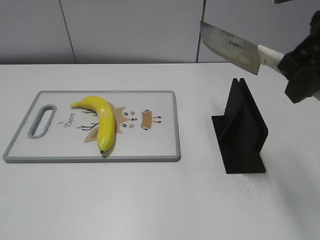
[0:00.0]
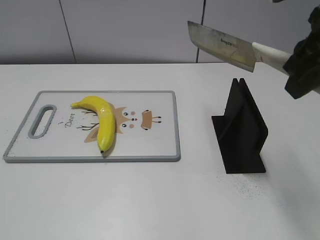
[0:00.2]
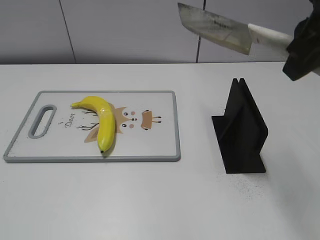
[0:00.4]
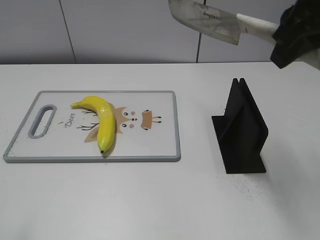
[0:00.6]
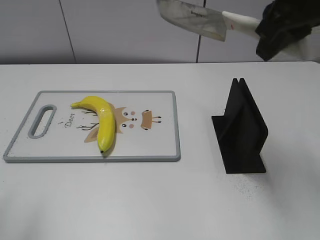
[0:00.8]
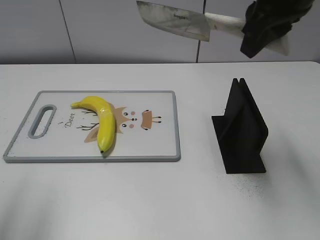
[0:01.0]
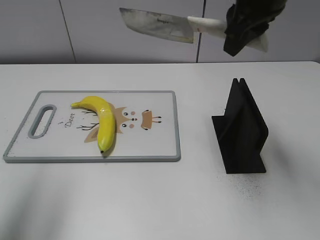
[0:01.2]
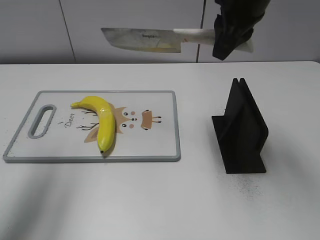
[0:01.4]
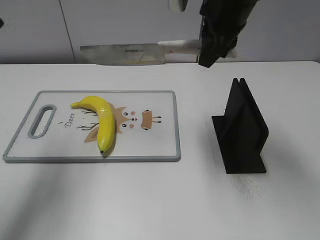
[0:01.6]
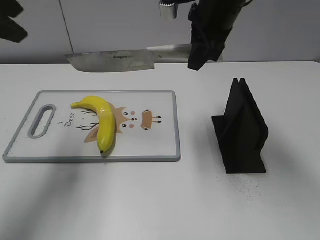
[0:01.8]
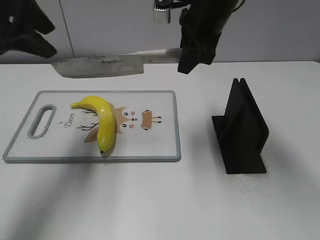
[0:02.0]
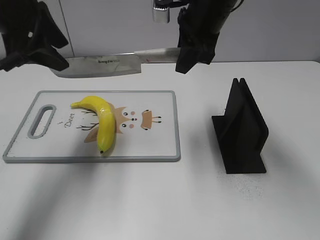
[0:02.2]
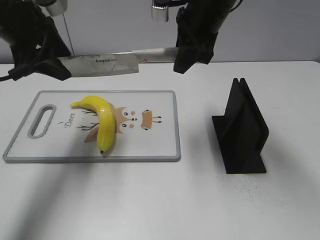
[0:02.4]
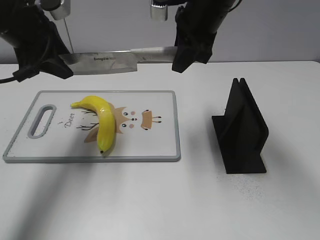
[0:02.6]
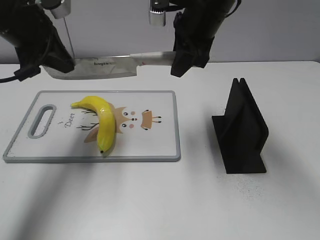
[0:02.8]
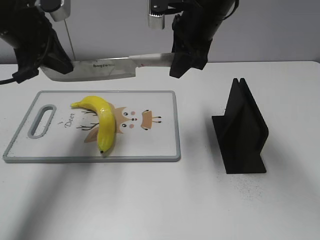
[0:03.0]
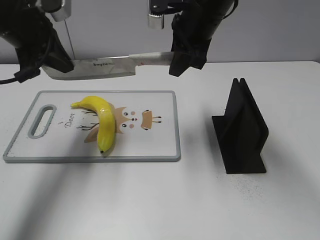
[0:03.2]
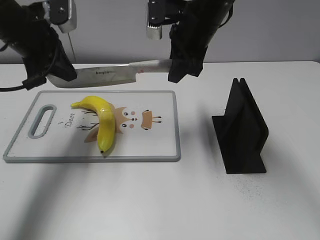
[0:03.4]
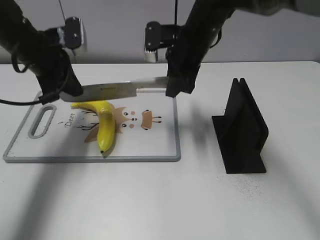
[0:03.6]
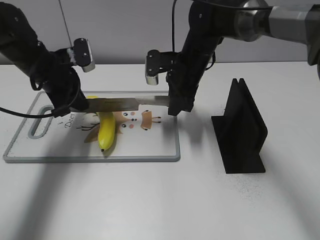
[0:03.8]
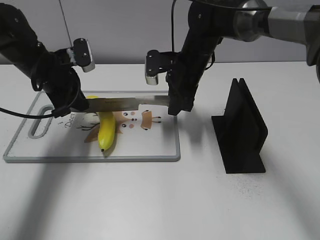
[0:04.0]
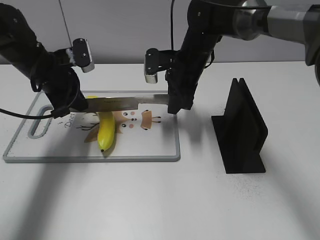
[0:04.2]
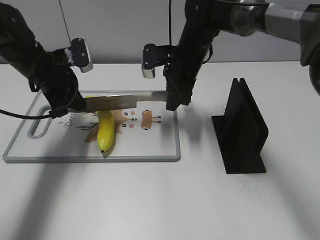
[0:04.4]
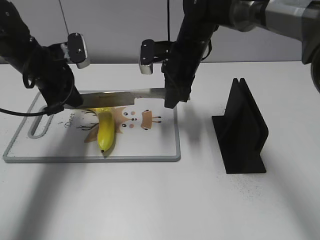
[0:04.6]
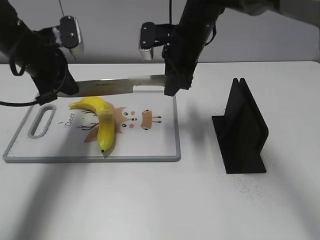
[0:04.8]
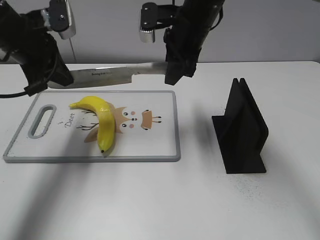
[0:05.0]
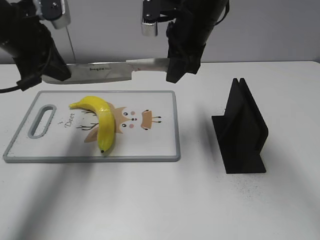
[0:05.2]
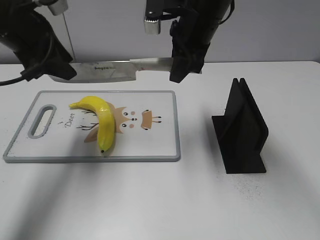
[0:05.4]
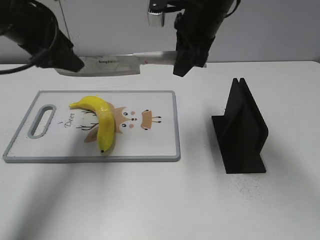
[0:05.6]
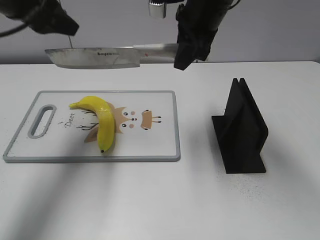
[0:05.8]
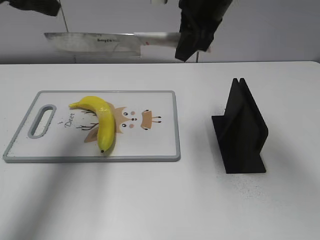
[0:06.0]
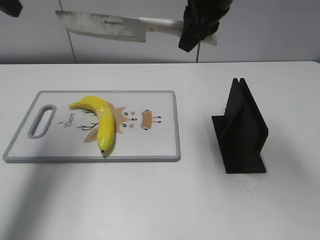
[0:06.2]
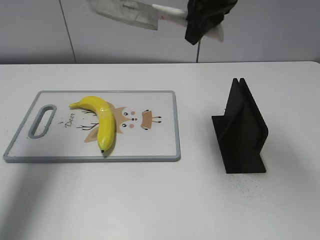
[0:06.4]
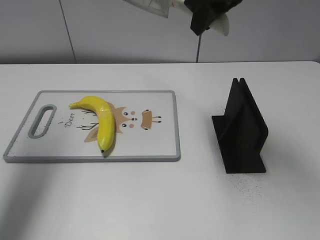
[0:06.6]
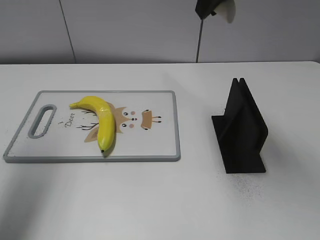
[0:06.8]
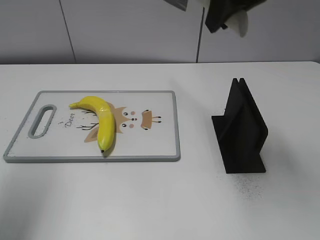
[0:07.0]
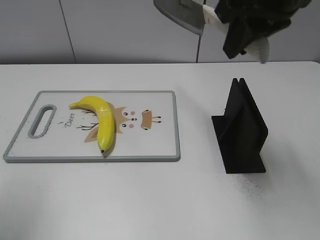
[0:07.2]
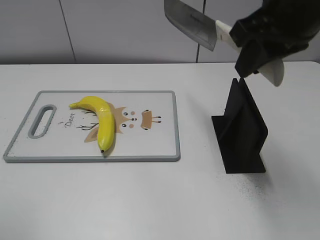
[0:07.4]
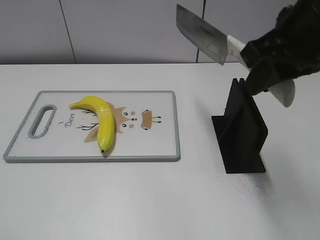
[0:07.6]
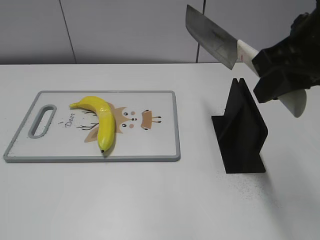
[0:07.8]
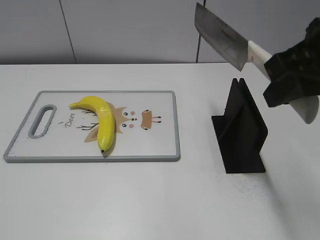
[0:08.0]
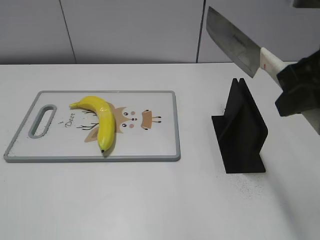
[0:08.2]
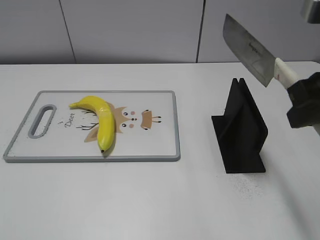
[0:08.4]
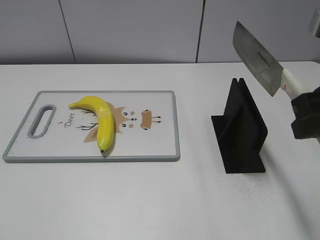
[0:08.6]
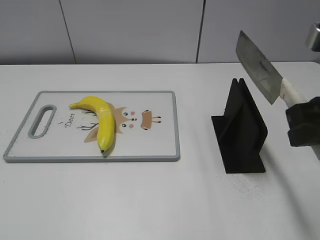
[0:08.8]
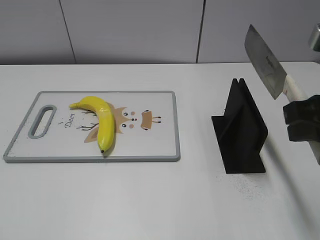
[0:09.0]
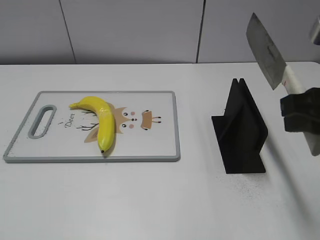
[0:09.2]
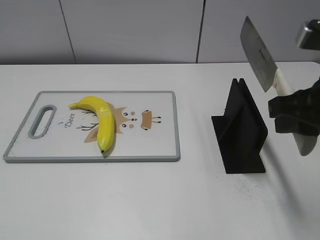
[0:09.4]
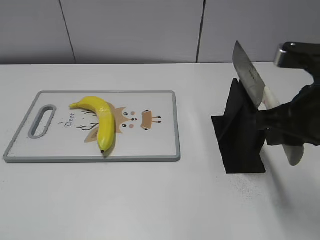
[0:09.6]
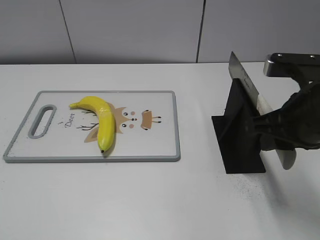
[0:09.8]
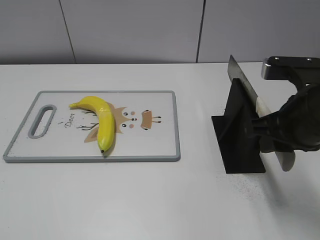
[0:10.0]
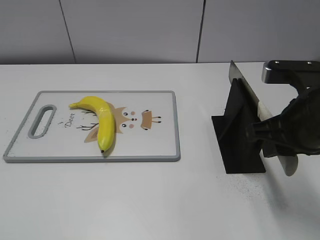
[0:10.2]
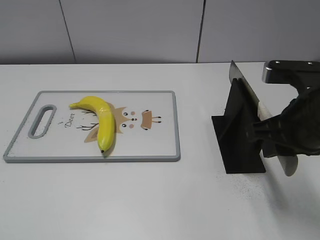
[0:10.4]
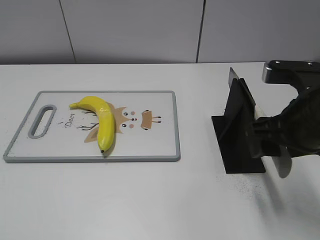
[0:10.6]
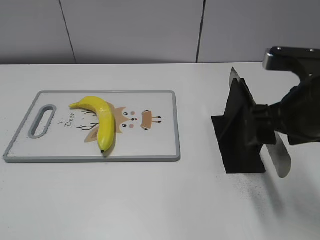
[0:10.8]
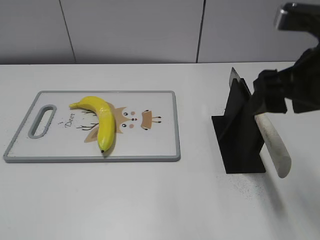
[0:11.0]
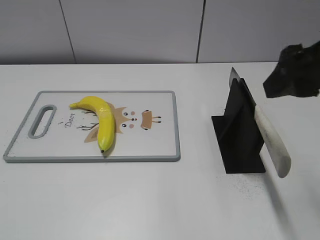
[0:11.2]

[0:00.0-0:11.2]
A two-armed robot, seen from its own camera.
Task of the whole recording: cut plastic banana.
Step, 0:00.0 to 0:04.8: Lift the knife with your right hand.
Step, 0:05.0 to 0:06.8: Cut the banana with your right hand.
Step, 0:07.2 to 0:08.4: Lift the knife with your right hand.
0:00.0 to 0:01.6: The right gripper shifts approximately 15 cm forward and to the left; the left gripper heads forward and upward, covering approximately 30 cm.
0:01.6 to 0:03.2: The right gripper changes place by approximately 5 cm; the left gripper is displaced downward, forward and to the right by some 15 cm, and closes up.
0:03.2 to 0:04.8: Both grippers move downward, roughly 5 cm.
0:04.8 to 0:06.4: The left gripper heads upward and to the left, covering some 20 cm, and opens its fingers; the right gripper heads upward, covering about 15 cm.
0:06.4 to 0:08.0: The right gripper is displaced backward and to the right by roughly 20 cm. The left gripper moves backward, about 30 cm.
0:08.0 to 0:09.6: The right gripper goes about 10 cm downward.
0:09.6 to 0:11.2: The right gripper moves upward, about 10 cm, and opens.

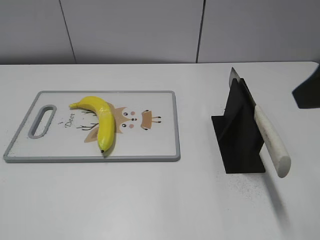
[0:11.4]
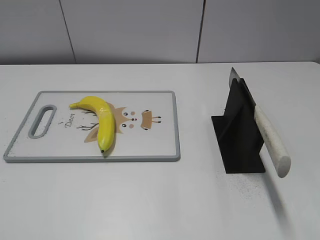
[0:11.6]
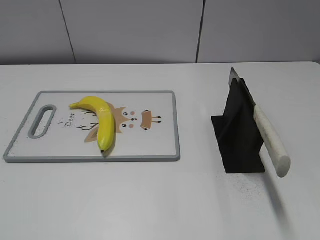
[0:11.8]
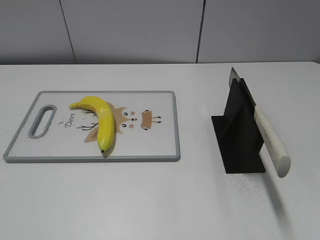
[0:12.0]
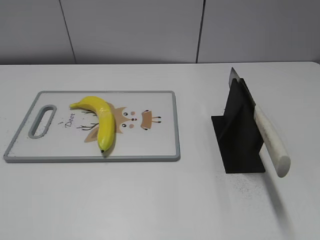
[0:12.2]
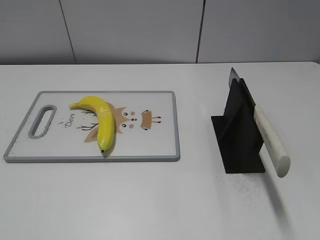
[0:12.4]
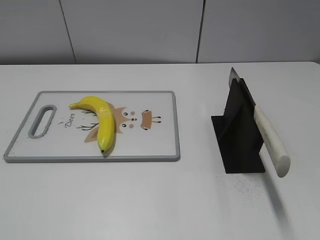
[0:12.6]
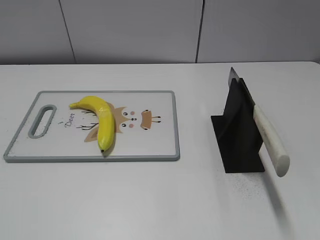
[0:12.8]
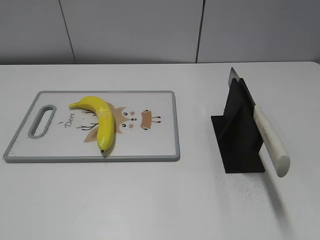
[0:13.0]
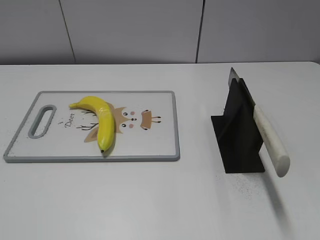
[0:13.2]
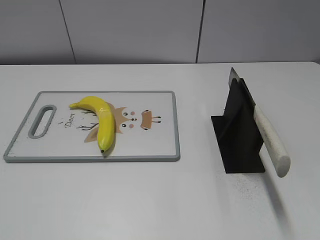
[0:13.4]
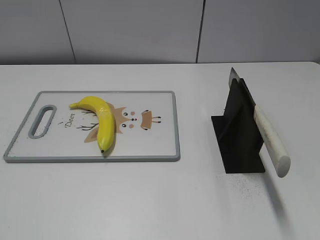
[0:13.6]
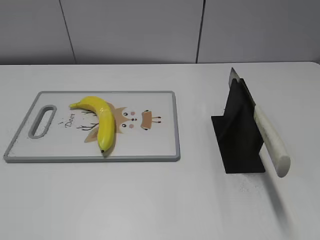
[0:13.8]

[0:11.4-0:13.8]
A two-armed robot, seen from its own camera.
Task of the whole recording: cut plastic banana.
Step, 0:11.4 to 0:13.8: Place the knife on the storage rack with your right hand.
0:11.4 to 0:12.6: The right gripper heads backward and to the right, covering about 20 cm.
